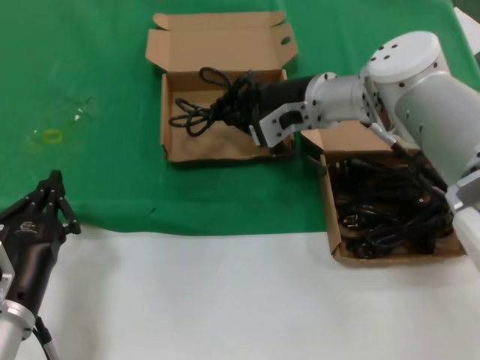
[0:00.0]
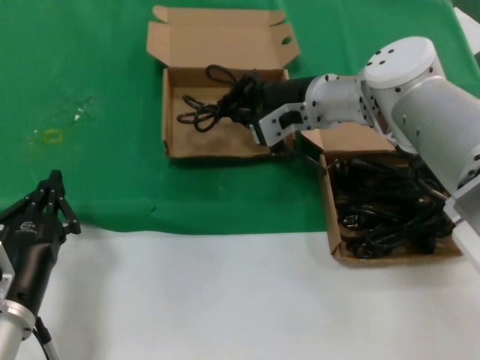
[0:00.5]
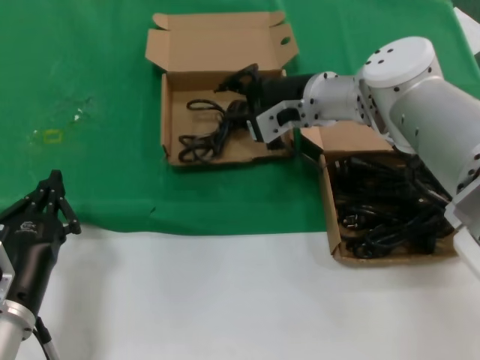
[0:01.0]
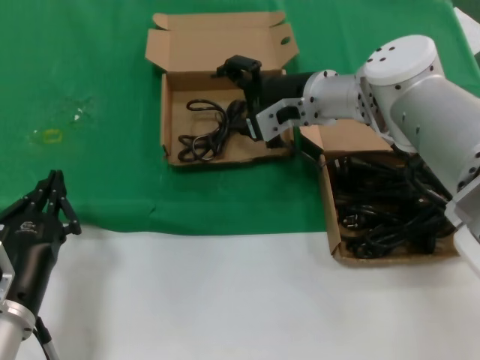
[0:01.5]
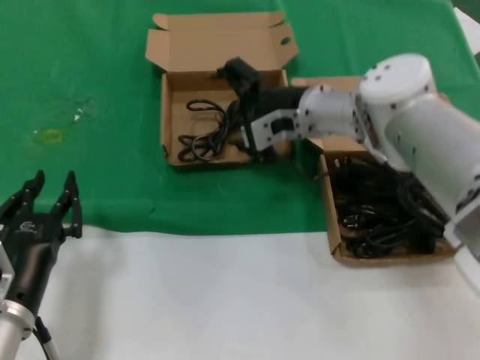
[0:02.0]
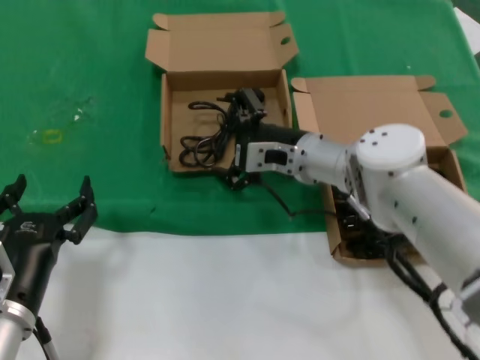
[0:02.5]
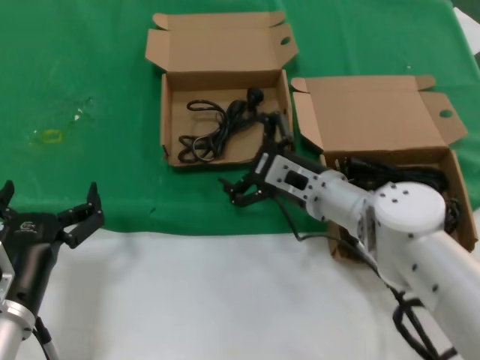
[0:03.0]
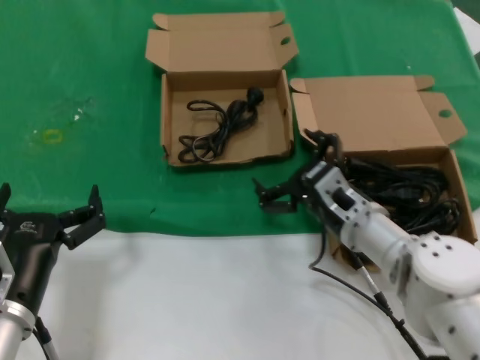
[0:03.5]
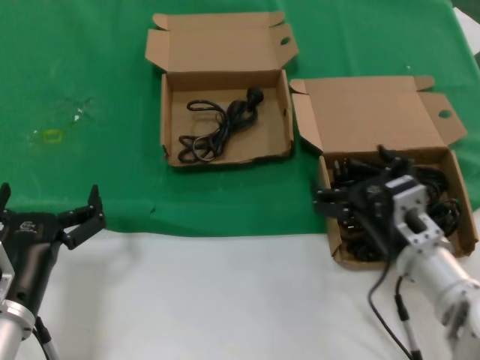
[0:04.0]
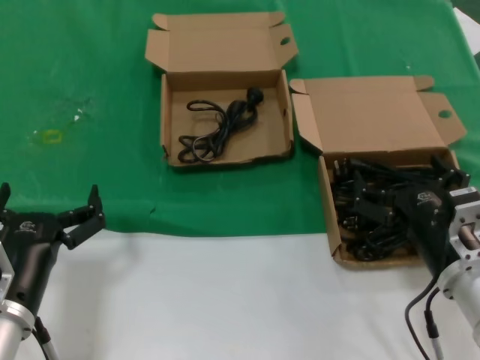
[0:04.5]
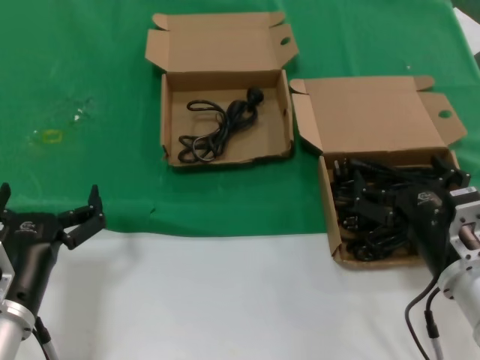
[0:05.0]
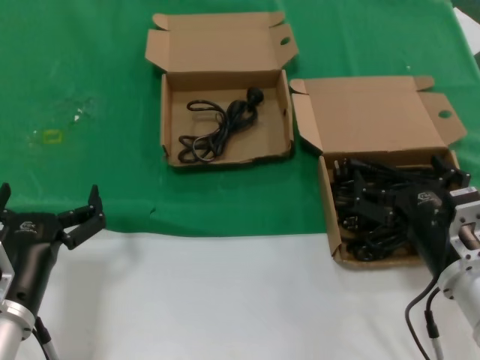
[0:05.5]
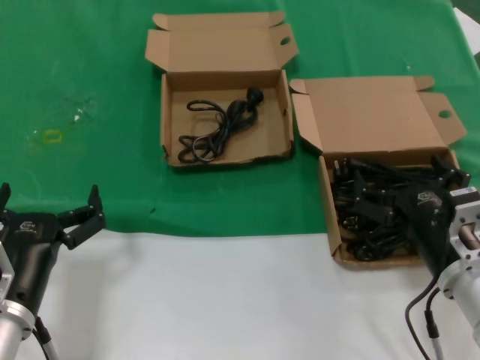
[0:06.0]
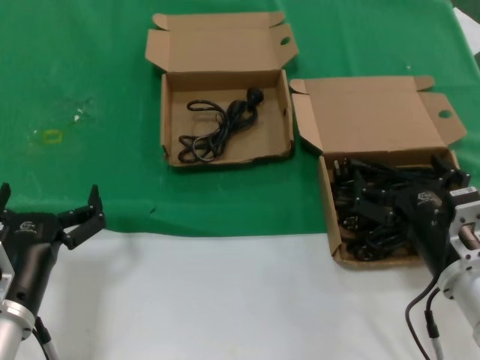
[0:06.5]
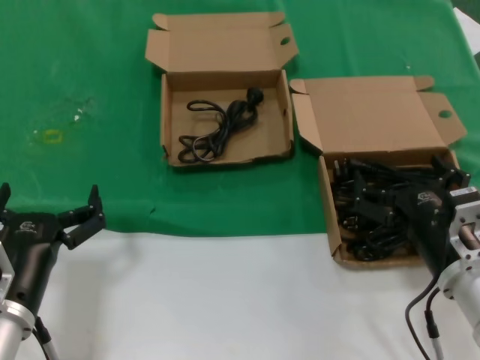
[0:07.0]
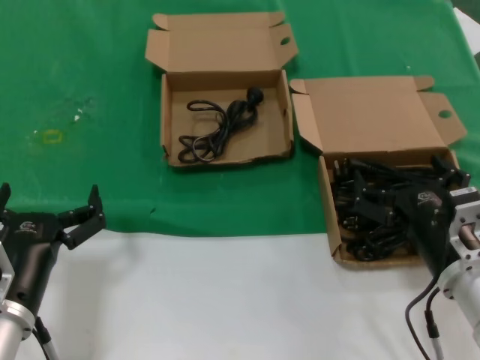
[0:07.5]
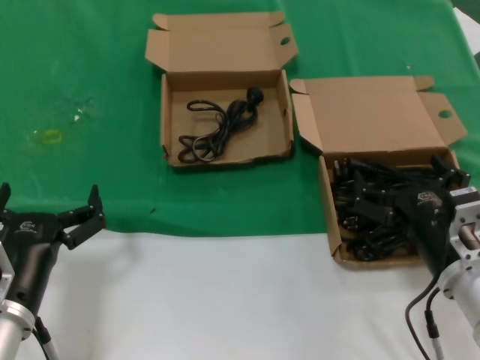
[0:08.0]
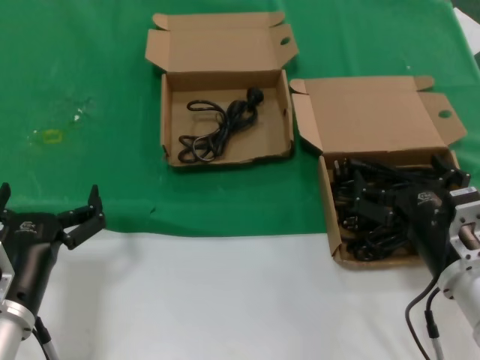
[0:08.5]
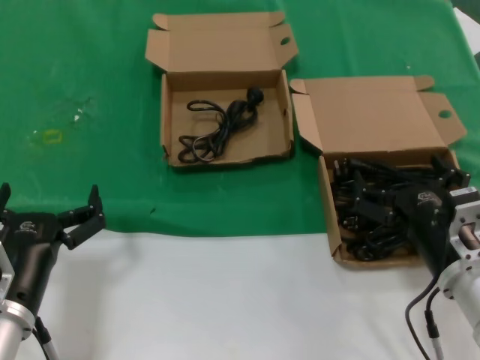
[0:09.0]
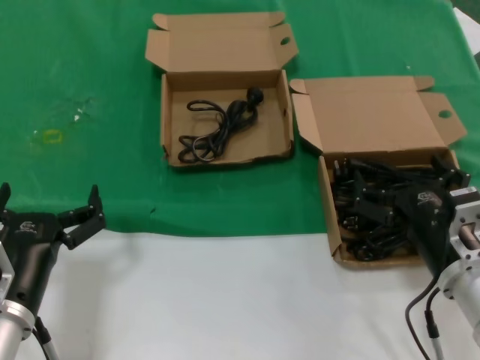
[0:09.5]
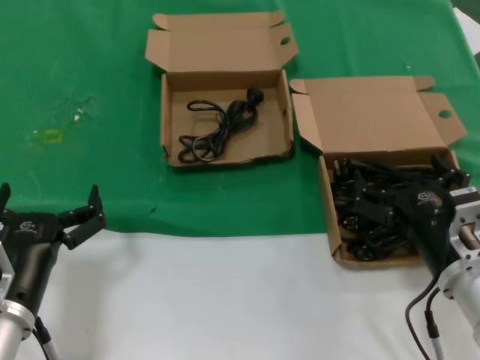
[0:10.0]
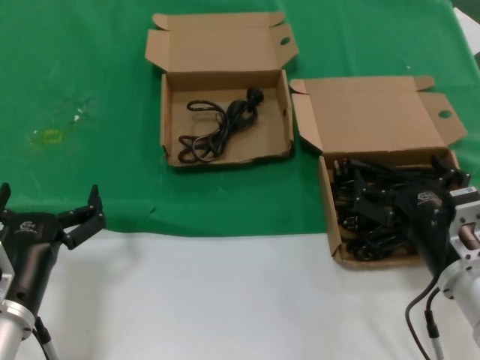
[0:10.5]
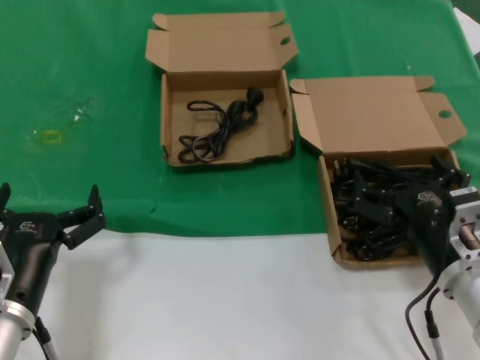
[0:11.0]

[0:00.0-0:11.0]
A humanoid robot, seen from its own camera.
Task of the whole recording: take the parts from the box containing them and put them into an empty box.
0:00.0 to 0:02.0: The hands move only a little.
0:02.0 to 0:03.5: The right hand moves downward and backward, approximately 20 cm.
0:03.5 to 0:05.5: The right hand heads backward and to the right, covering roughly 15 cm.
0:05.5 to 0:11.0: Neither hand changes place.

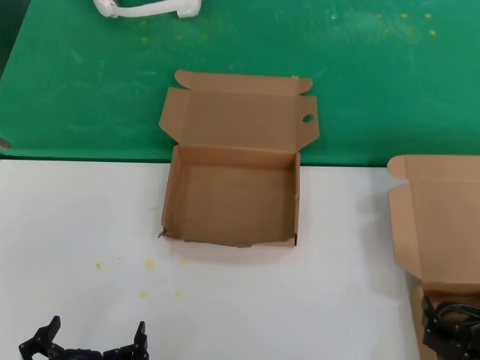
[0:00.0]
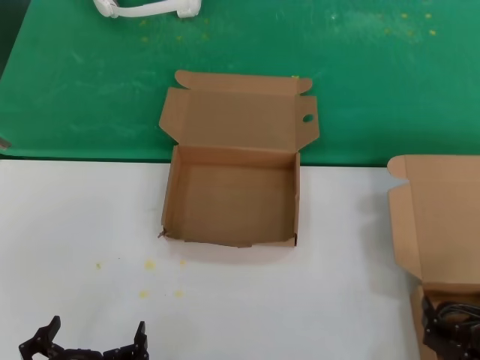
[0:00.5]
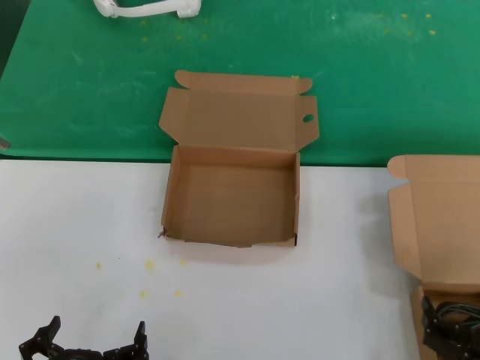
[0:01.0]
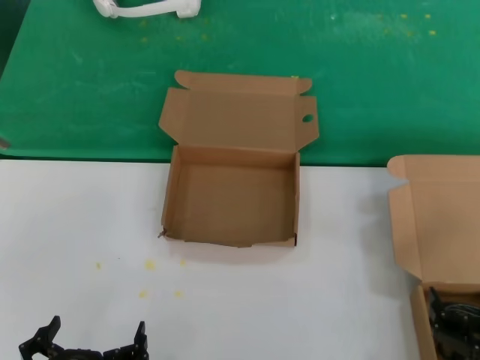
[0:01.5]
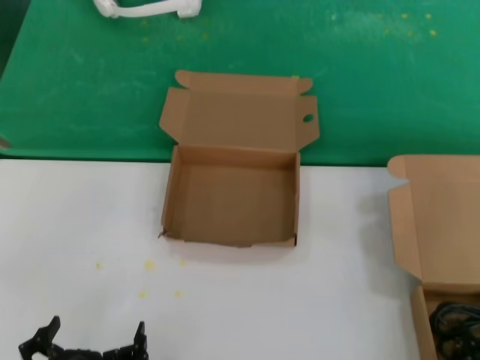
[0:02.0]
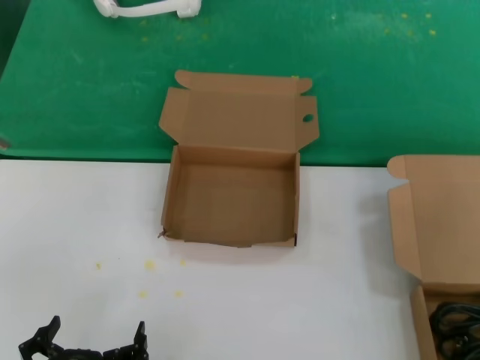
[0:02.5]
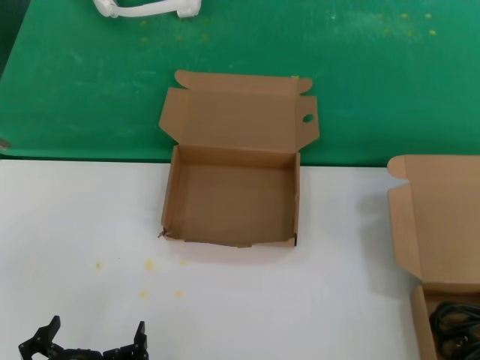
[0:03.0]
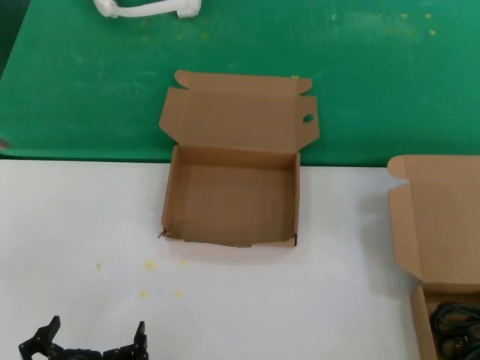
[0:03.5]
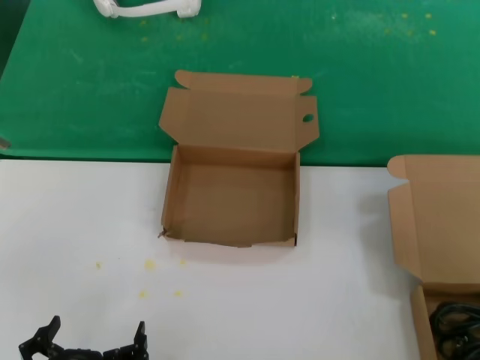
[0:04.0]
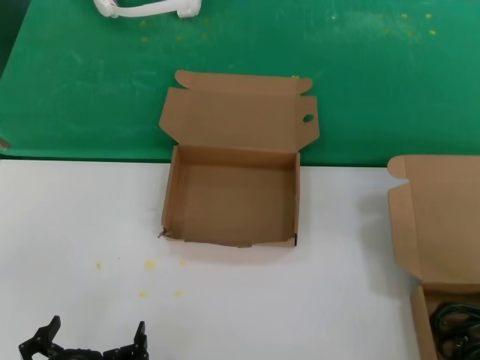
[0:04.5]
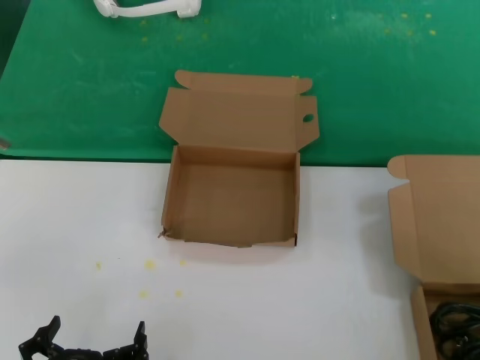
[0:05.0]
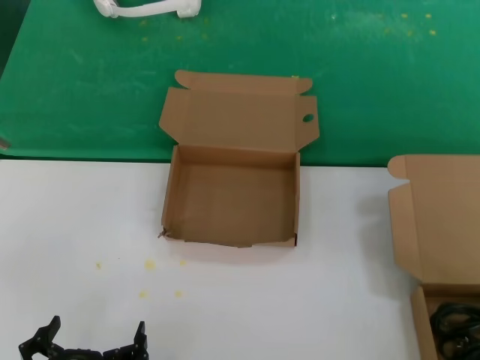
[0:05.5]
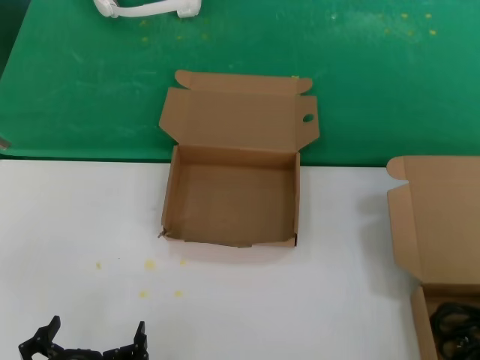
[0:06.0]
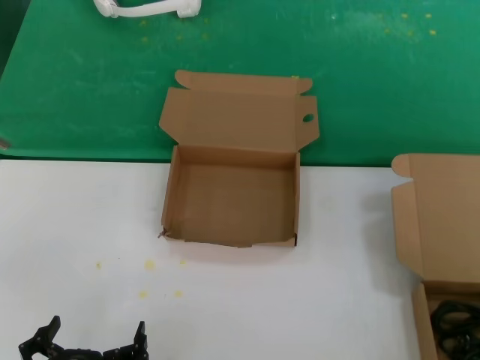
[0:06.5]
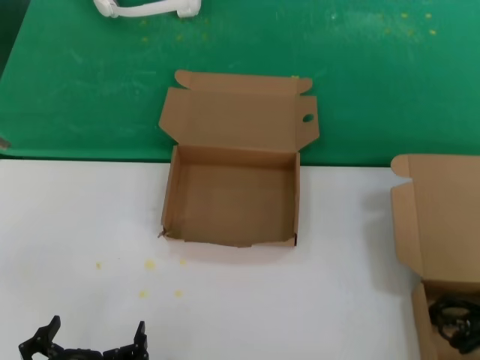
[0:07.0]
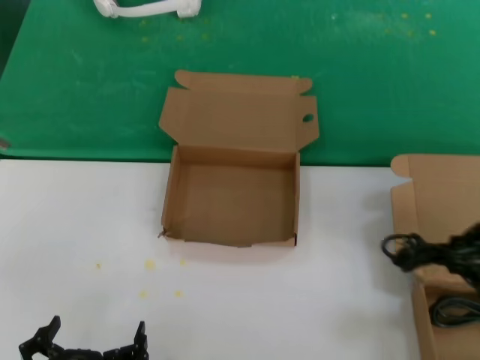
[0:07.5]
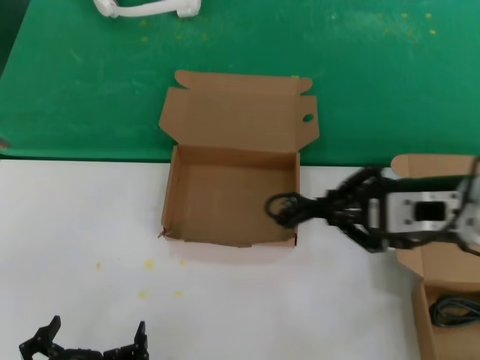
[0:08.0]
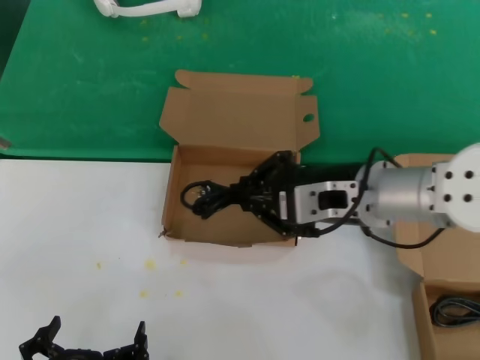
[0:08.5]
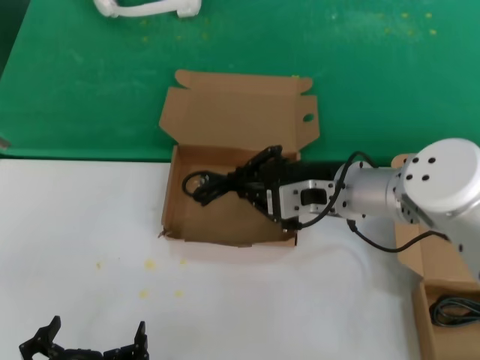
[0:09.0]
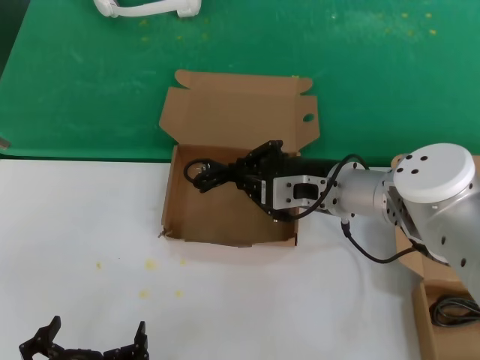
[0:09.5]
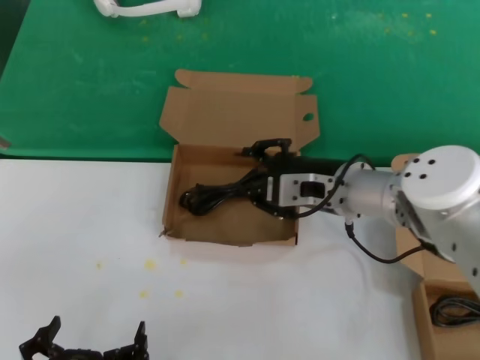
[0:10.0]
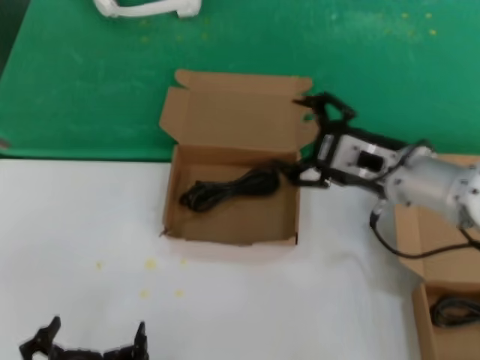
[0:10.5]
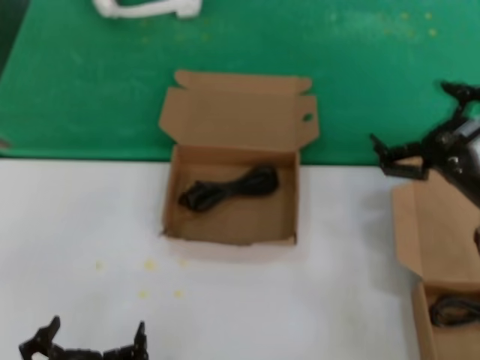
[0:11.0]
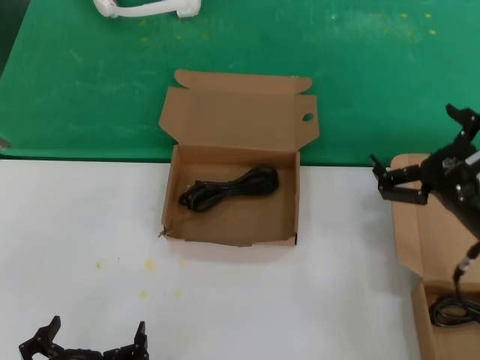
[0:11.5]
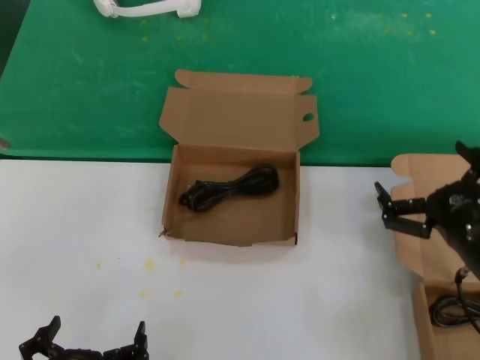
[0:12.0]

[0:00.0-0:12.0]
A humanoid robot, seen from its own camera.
Task of the whole recording: take the parts from the box containing them and put them into an empty box.
Step, 0:07.0 to 0:10.0: Place the data cable in the another box.
0:06.0 to 0:08.0: The right hand goes some 20 cm to the left and upward.
0:08.0 to 0:10.0: The right hand moves forward, to the left and downward, about 15 cm.
0:10.0 to 0:12.0: The right hand is displaced to the right, backward and downward by roughly 20 cm.

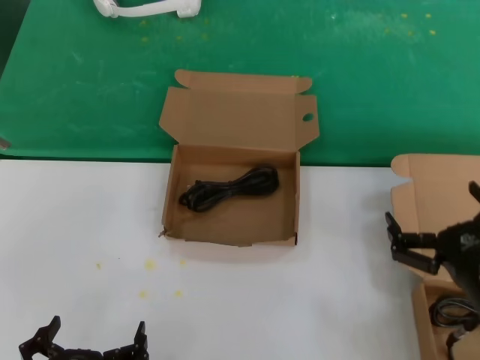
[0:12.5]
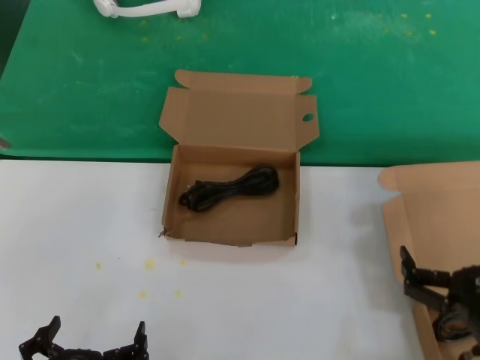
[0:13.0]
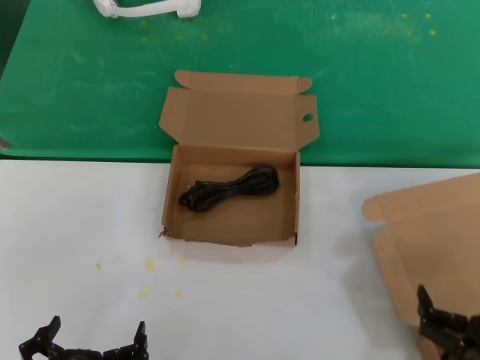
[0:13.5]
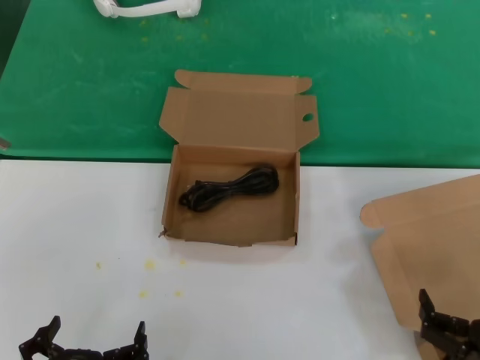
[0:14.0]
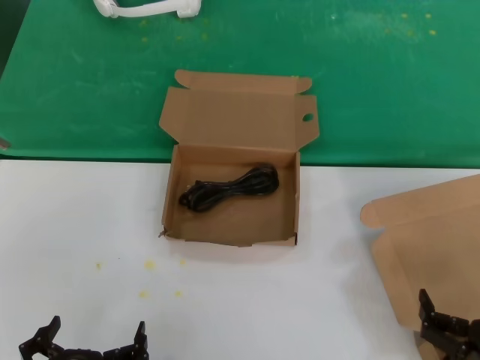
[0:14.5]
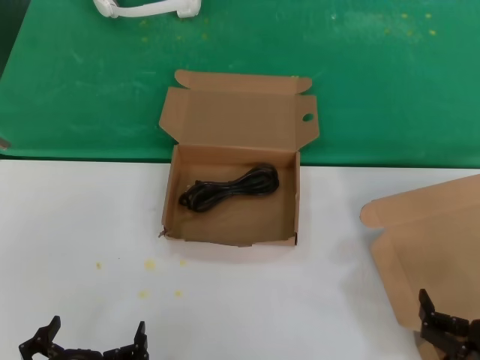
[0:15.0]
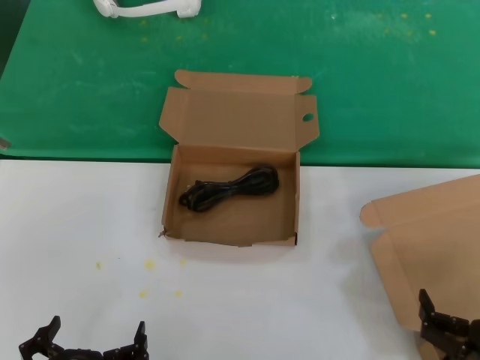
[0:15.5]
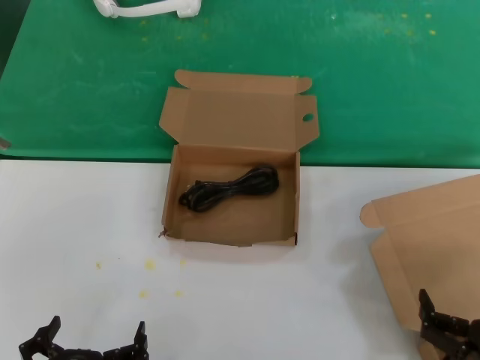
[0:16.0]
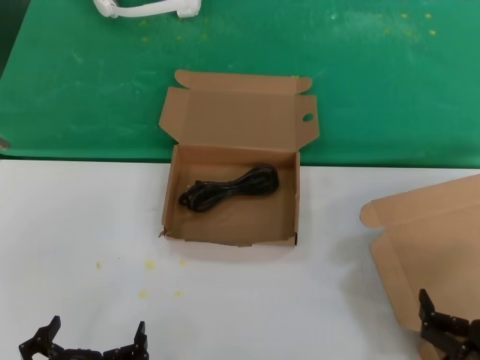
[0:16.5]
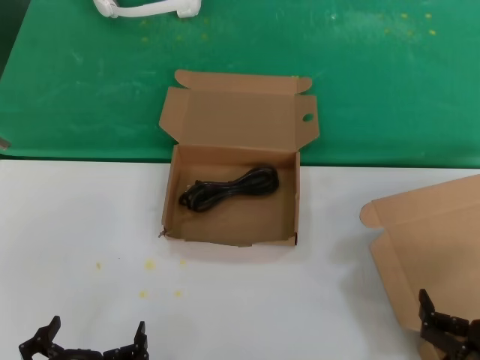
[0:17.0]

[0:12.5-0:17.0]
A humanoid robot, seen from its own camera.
Task of the whole recording: take the parts from the box containing them and put them into an empty box.
0:12.5 to 0:14.5: The right hand travels backward and downward by approximately 10 cm.
0:14.5 to 0:17.0: The two hands keep their place.
